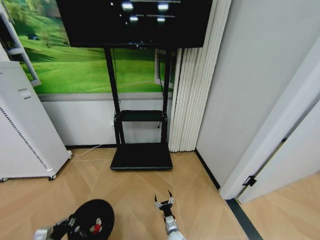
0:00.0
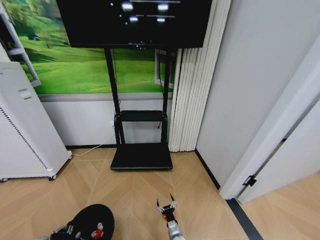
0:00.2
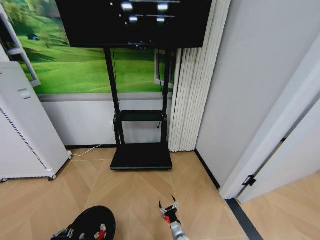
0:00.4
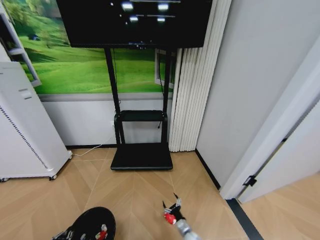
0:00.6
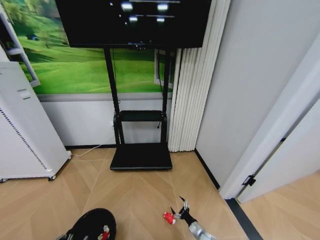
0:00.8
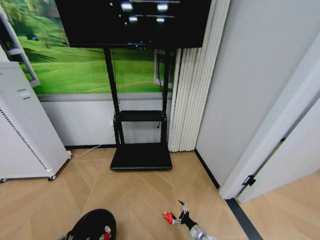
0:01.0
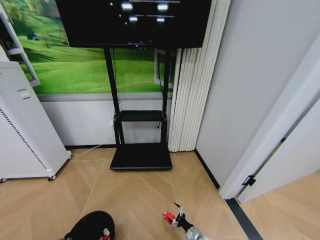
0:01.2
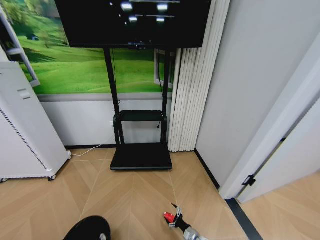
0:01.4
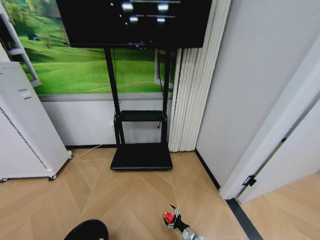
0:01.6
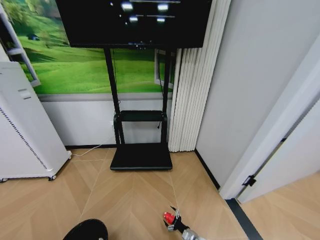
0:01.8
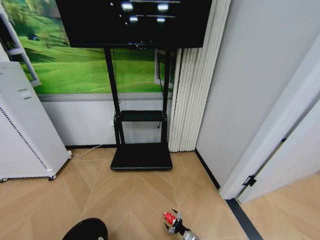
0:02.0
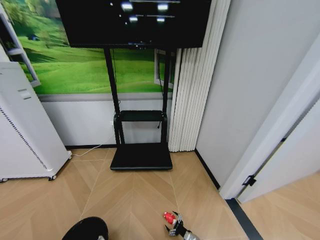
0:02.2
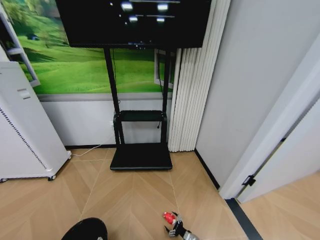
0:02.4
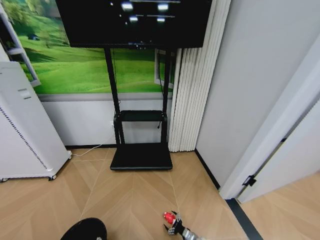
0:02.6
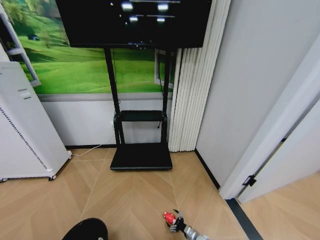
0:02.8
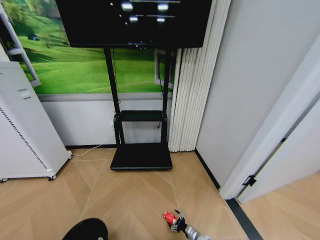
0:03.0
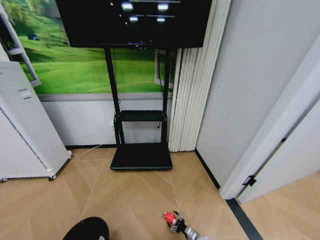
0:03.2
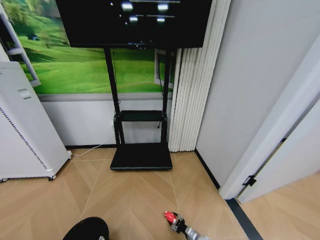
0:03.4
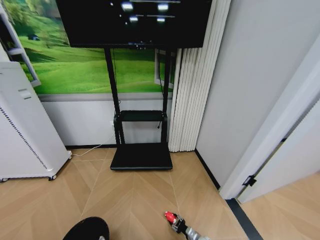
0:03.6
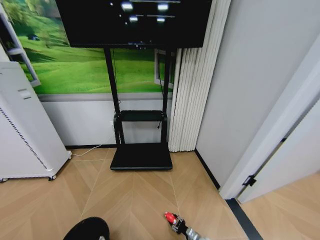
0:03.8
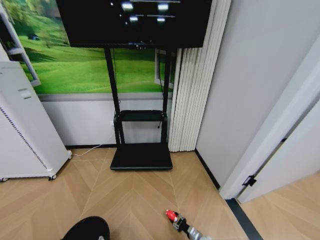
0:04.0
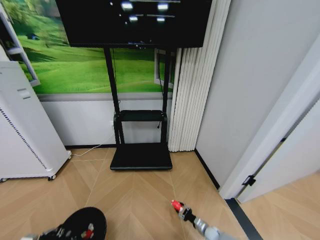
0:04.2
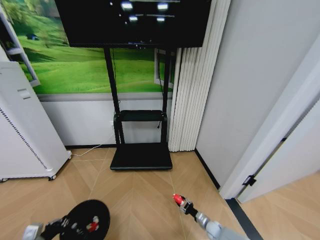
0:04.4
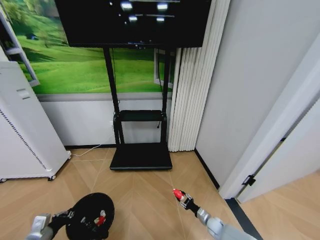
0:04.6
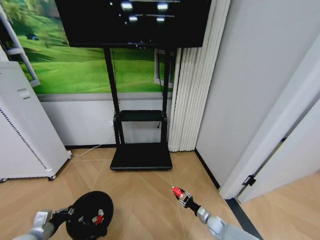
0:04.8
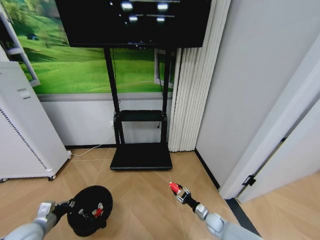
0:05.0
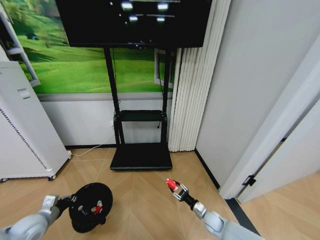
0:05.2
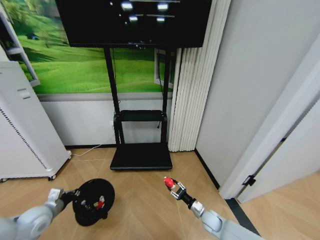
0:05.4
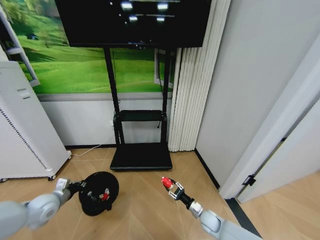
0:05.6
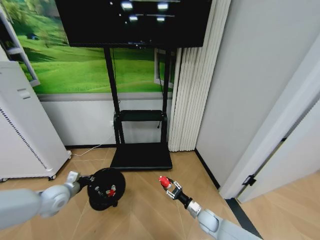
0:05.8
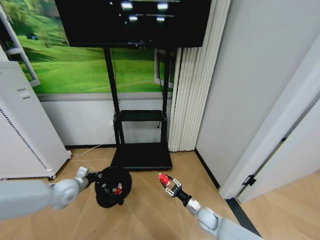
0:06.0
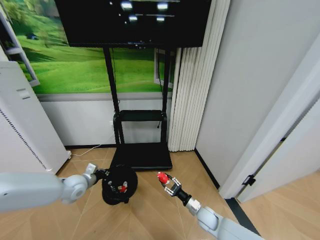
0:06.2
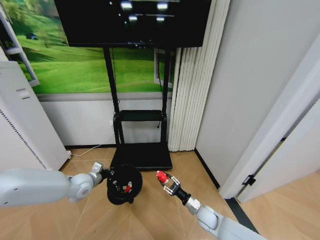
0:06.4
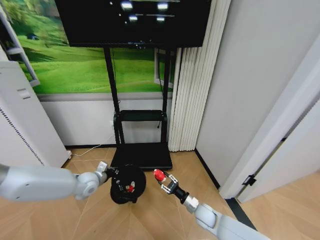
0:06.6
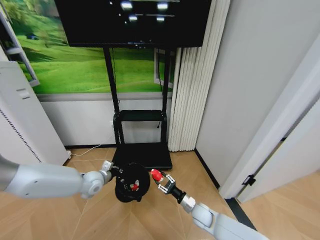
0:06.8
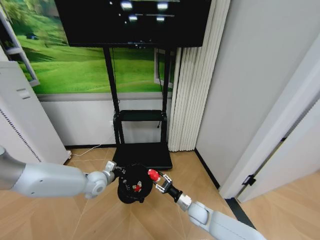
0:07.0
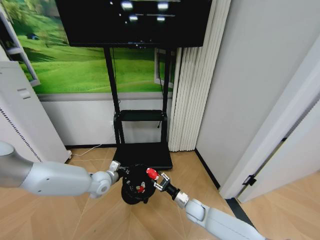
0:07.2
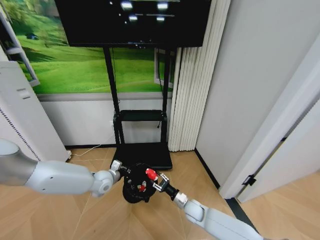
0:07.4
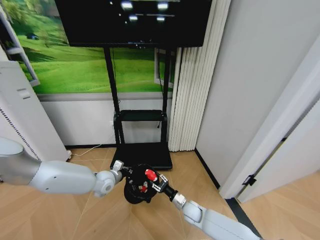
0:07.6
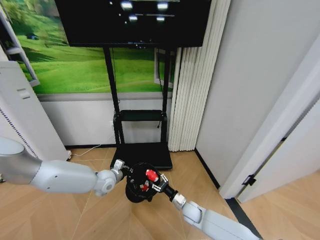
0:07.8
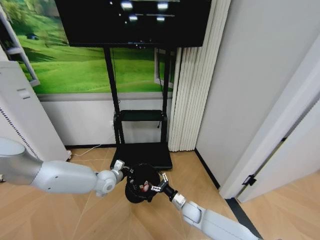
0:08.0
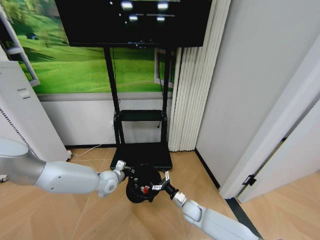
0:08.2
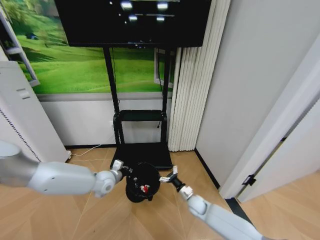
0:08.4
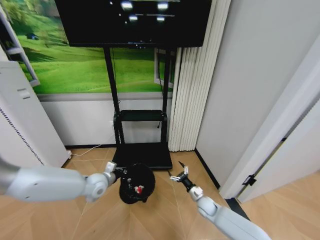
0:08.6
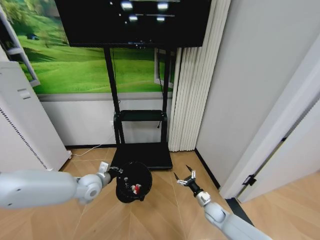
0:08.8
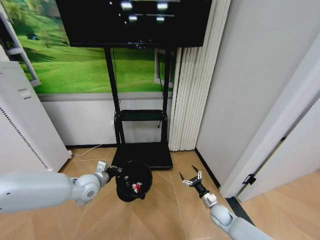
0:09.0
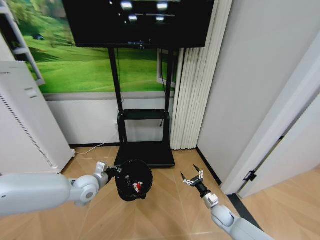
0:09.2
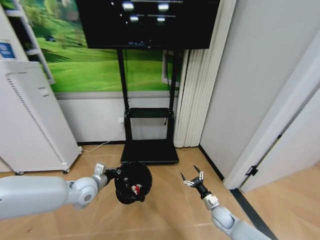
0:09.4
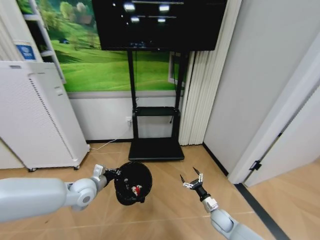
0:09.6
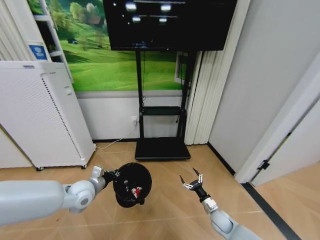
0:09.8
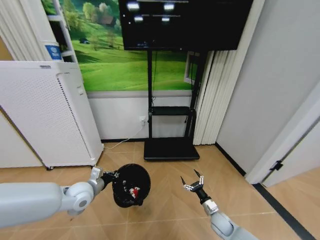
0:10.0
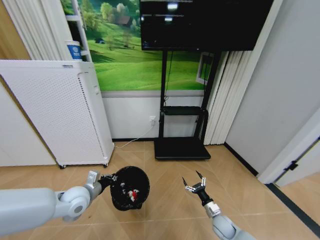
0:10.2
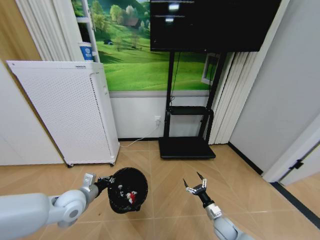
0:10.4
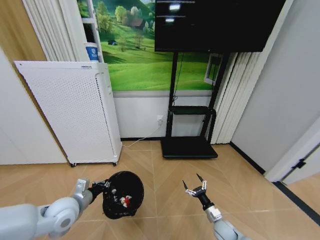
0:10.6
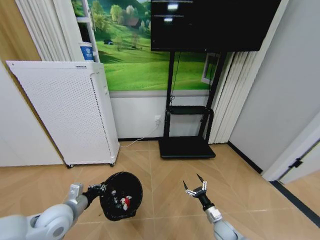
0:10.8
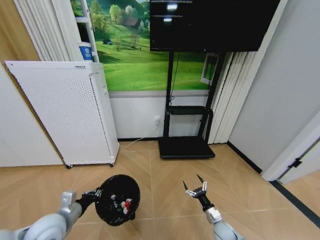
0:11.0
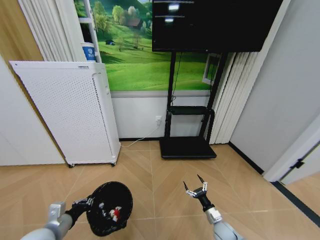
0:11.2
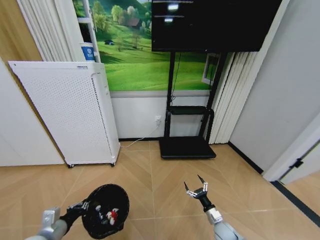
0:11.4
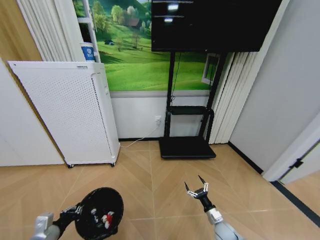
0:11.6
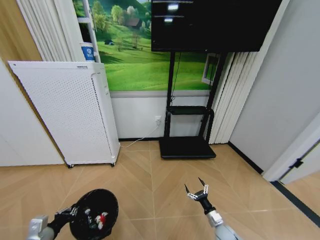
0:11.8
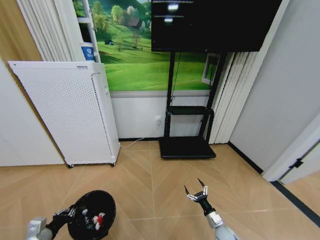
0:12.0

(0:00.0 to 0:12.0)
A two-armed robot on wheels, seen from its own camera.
Task of the whole recording: Pick up the trash bin and place the garbage on the floor into it.
0:00.0 - 0:01.6: The left gripper goes roughly 10 cm backward; the right gripper moves to the right and downward, about 15 cm.
0:01.6 - 0:03.0: The grippers make only small movements.
0:03.0 - 0:04.4: The left gripper heads forward and upward, covering approximately 10 cm. The right gripper heads to the right and upward, covering roughly 10 cm, and closes its fingers.
0:04.4 - 0:06.0: The left gripper moves forward, approximately 20 cm; the right gripper moves upward and to the left, approximately 15 cm.
0:06.0 - 0:07.6: The right gripper moves to the left, roughly 5 cm; the left gripper travels to the right by approximately 15 cm.
0:07.6 - 0:09.0: The right gripper heads to the right, covering roughly 15 cm, and opens. The left gripper moves some 5 cm.
0:09.0 - 0:10.4: The right gripper moves about 5 cm; the left gripper moves backward, about 5 cm.
0:10.4 - 0:12.0: The left gripper is displaced backward, to the left and downward by about 20 cm.

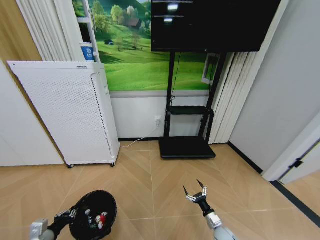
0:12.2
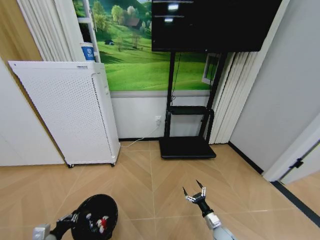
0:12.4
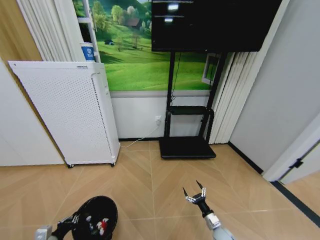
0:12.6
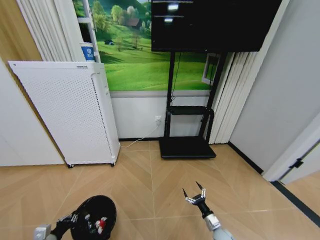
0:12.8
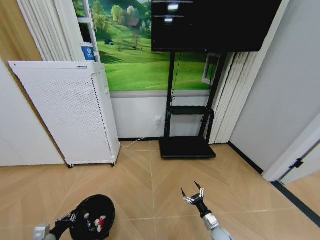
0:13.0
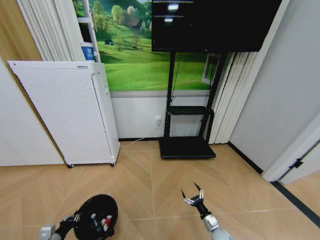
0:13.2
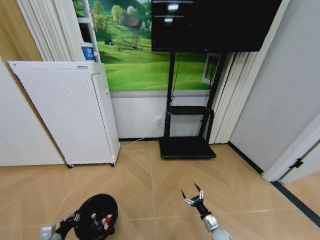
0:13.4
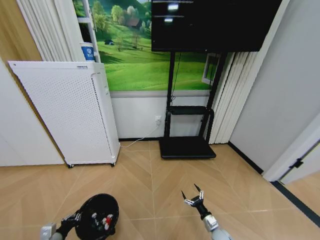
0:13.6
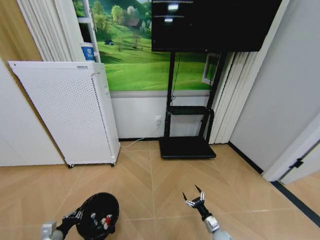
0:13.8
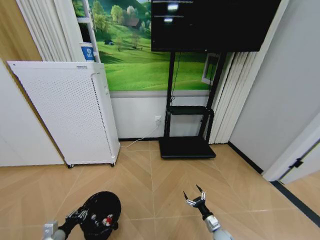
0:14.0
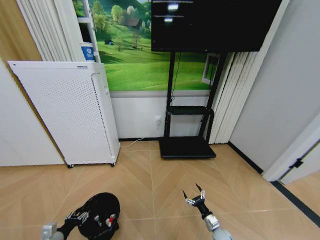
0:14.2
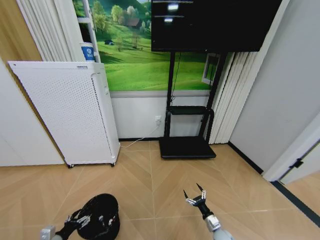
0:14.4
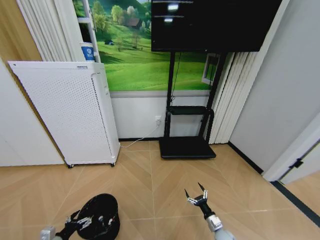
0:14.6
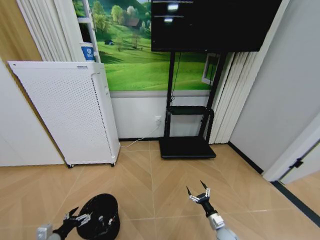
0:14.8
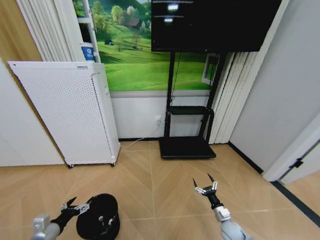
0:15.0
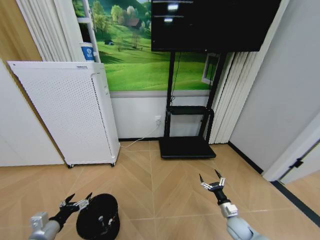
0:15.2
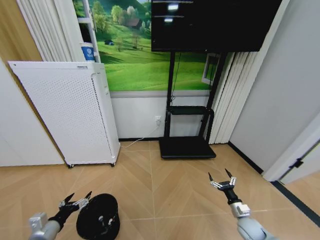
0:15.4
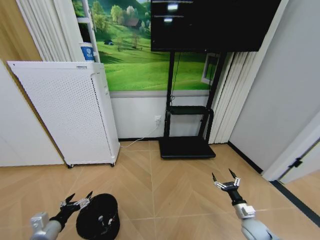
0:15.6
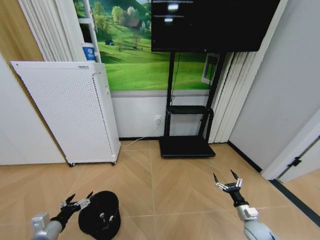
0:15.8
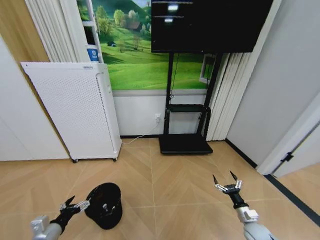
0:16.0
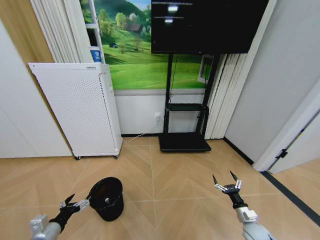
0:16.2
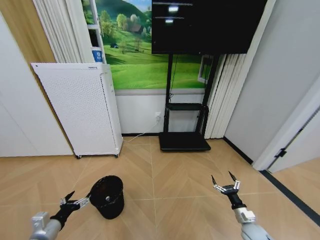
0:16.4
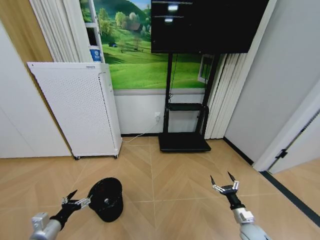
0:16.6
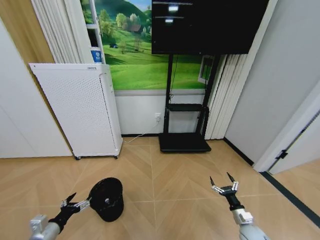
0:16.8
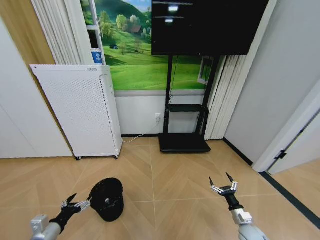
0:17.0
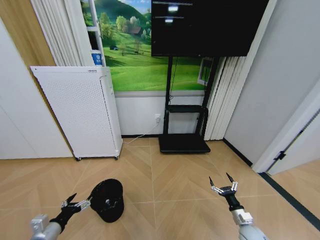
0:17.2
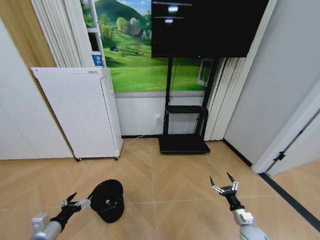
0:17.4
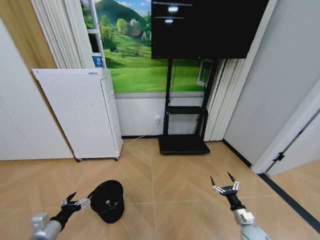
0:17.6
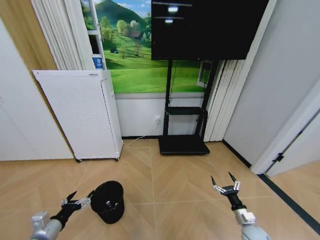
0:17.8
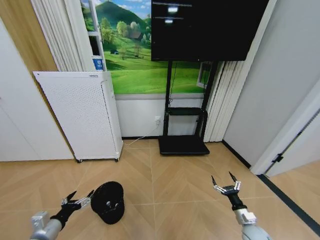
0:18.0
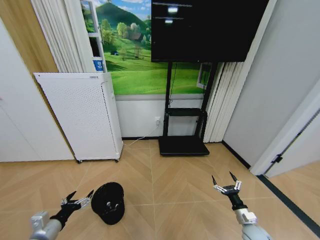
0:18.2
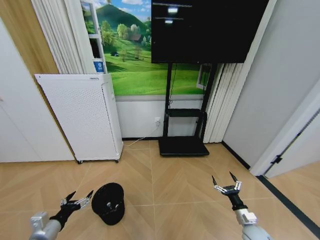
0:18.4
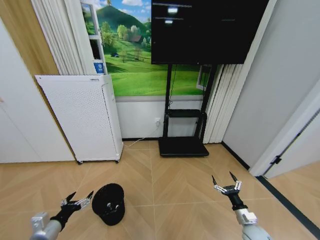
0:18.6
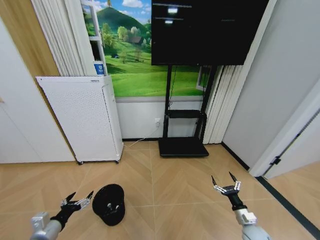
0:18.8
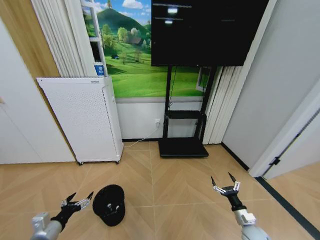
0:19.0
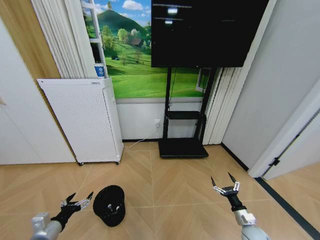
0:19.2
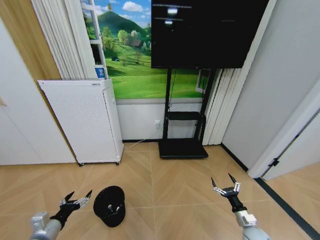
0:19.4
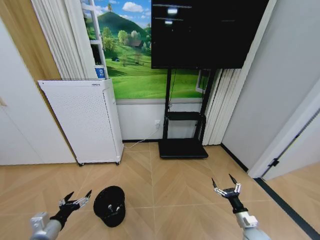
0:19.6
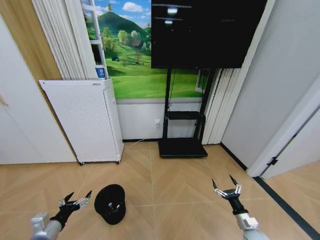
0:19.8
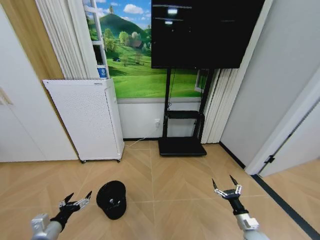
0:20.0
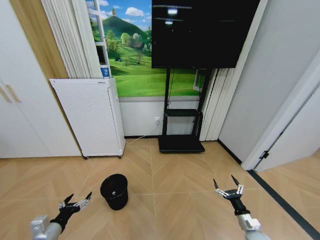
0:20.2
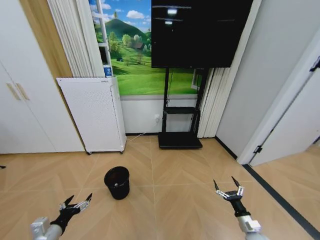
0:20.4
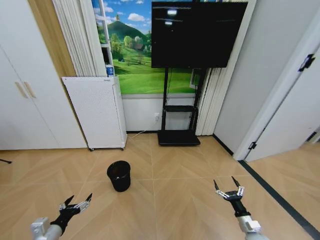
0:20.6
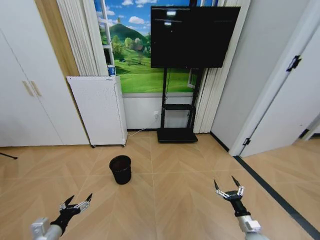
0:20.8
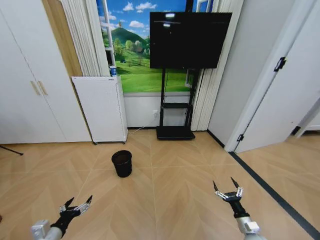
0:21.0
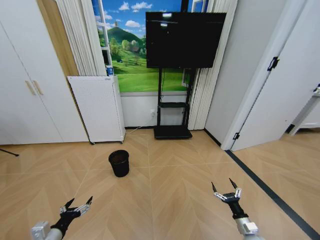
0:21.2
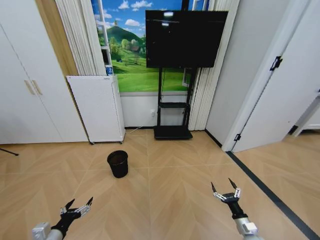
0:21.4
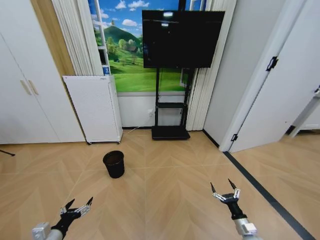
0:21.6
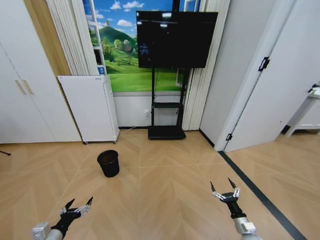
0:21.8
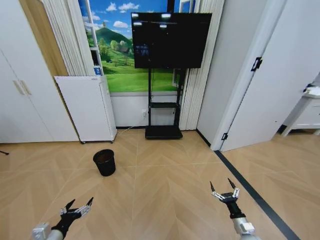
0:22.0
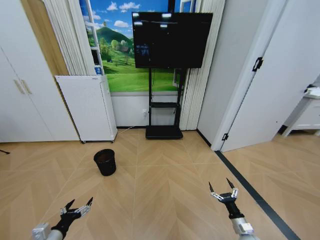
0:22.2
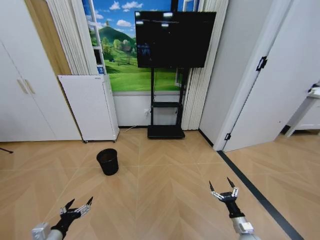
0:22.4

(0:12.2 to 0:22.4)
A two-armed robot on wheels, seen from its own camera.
Task of the whole recording: Pick up the trash bin and place the garbage on the floor into it.
0:12.2 - 0:13.6: The left gripper shifts approximately 5 cm downward.
0:13.6 - 0:15.2: The right gripper moves upward and to the right, roughly 10 cm; the left gripper heads upward, covering approximately 10 cm, and opens.
0:16.6 - 0:18.0: Both grippers stay put.
0:18.0 - 0:19.4: Both grippers stay put.
